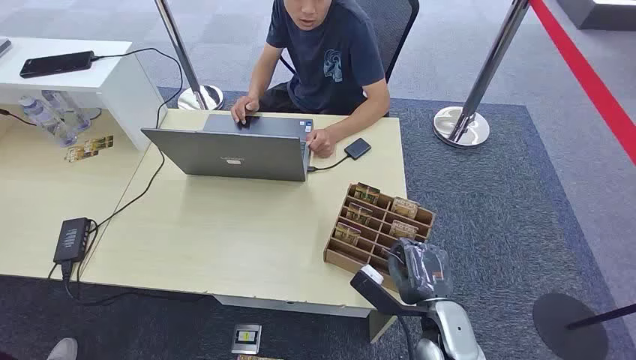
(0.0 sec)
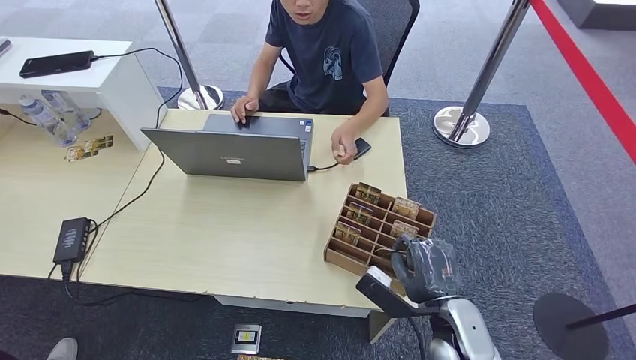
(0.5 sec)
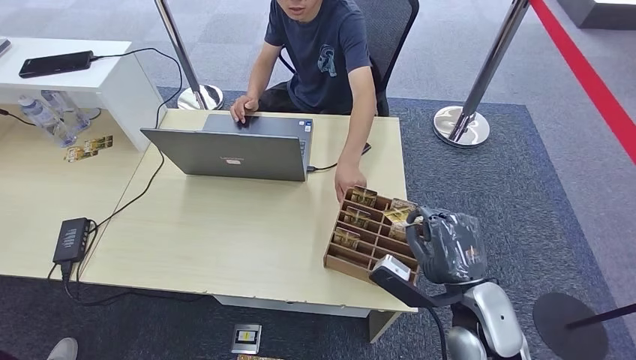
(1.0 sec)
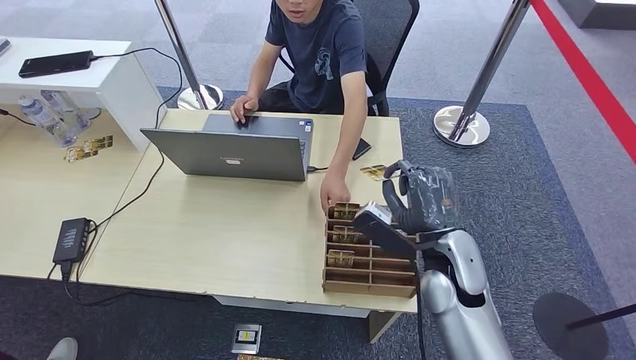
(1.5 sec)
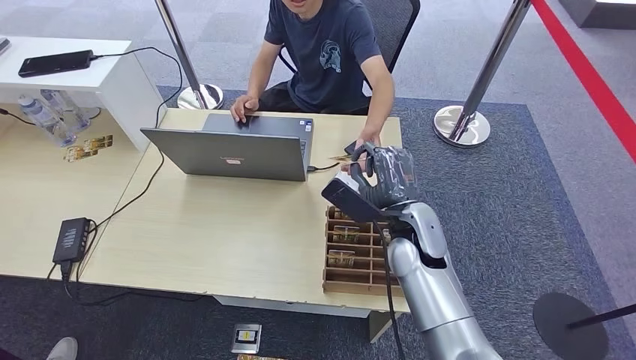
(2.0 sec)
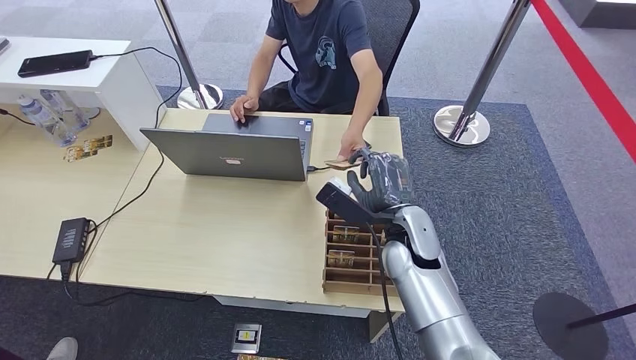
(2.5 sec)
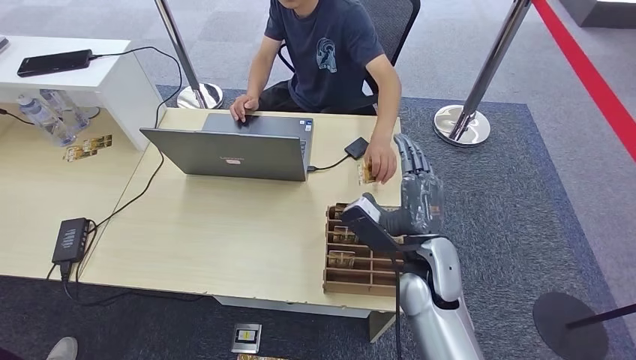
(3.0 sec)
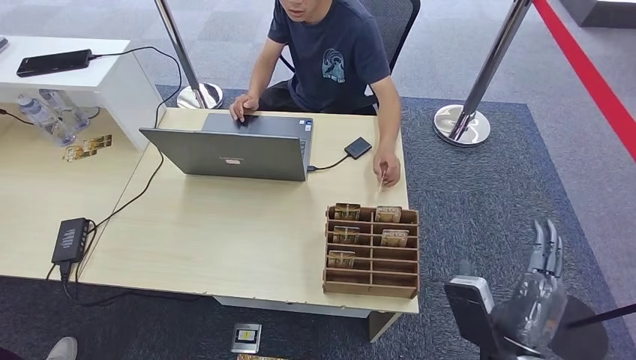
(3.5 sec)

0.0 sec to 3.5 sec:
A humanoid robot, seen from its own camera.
Step, 0.0 sec to 1.0 sec: Pick up the key card from the card box.
Step, 1.5 sec to 3.5 sec: Hand the key card to the target.
2.0 sec to 3.5 sec: The right hand shifts about 20 cm backward and to the right.
